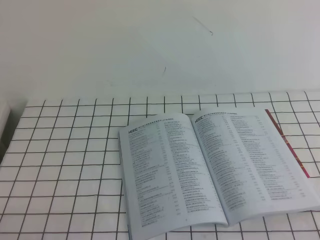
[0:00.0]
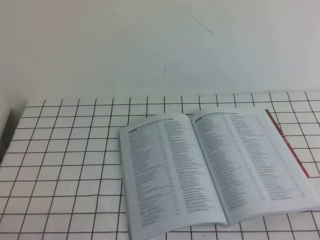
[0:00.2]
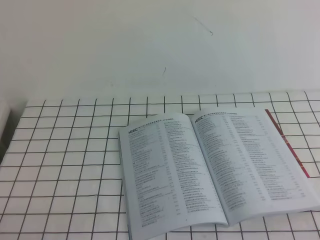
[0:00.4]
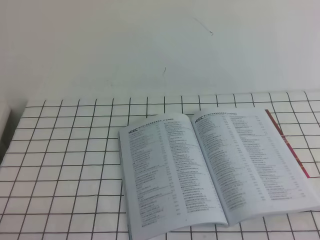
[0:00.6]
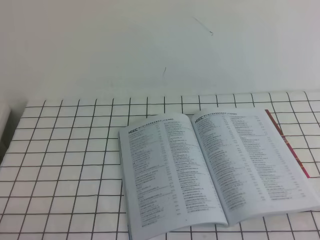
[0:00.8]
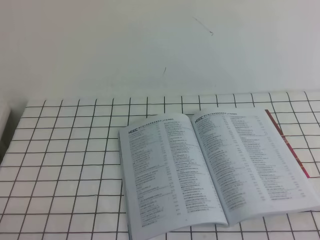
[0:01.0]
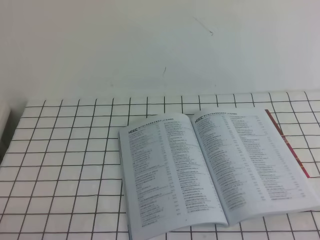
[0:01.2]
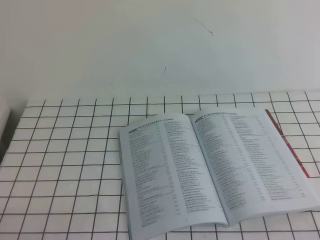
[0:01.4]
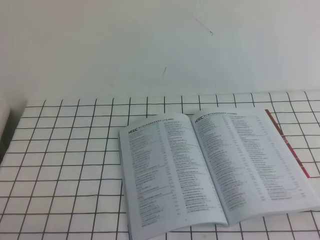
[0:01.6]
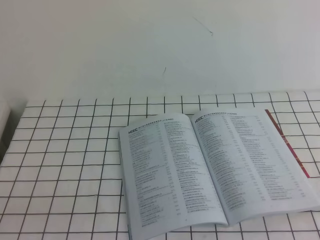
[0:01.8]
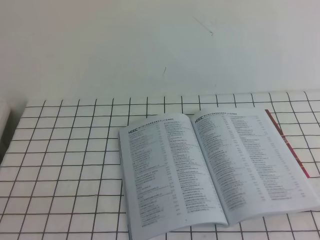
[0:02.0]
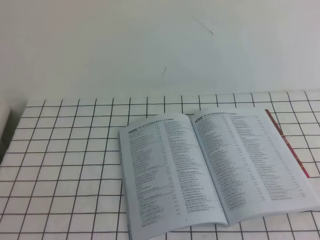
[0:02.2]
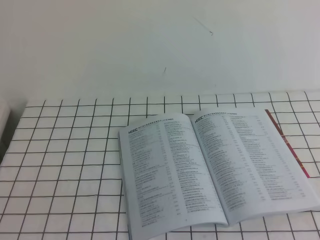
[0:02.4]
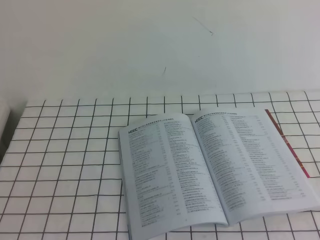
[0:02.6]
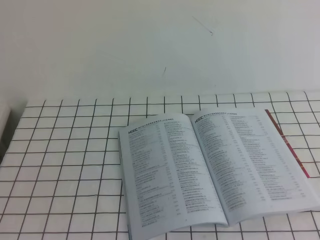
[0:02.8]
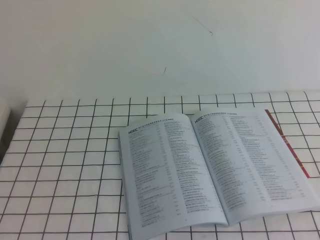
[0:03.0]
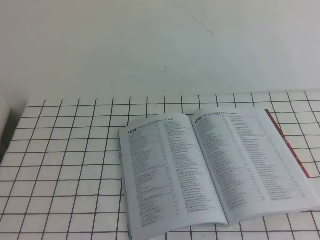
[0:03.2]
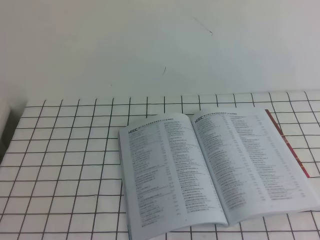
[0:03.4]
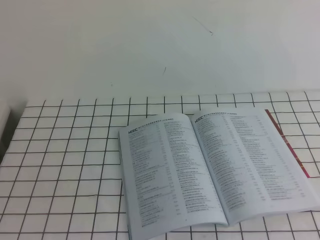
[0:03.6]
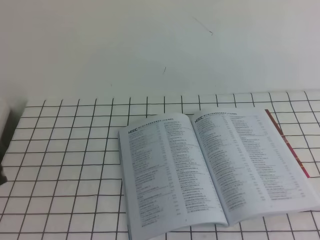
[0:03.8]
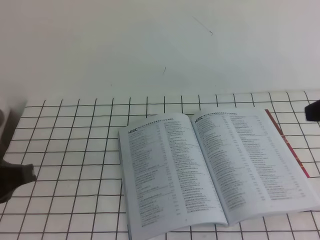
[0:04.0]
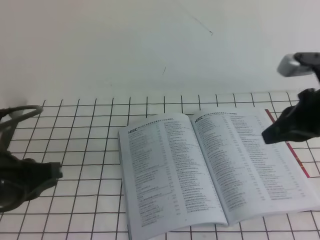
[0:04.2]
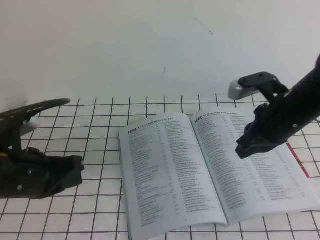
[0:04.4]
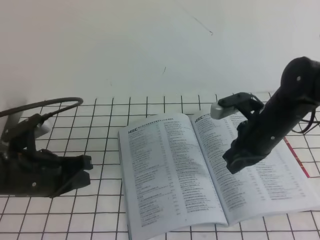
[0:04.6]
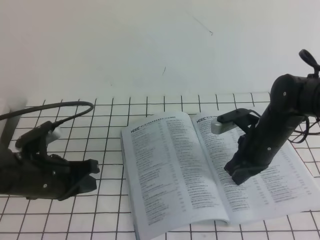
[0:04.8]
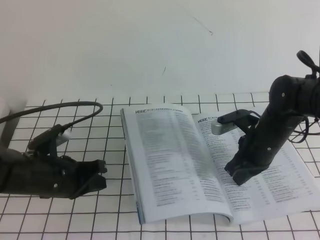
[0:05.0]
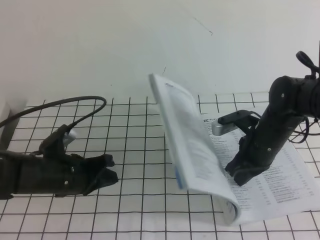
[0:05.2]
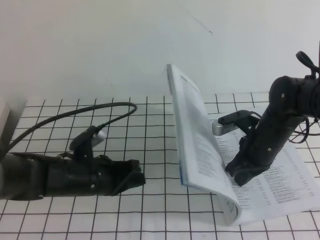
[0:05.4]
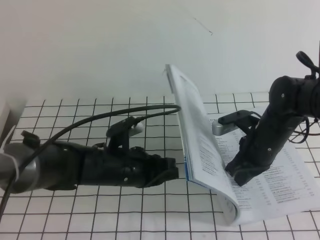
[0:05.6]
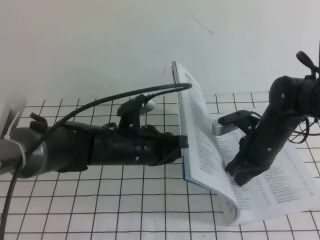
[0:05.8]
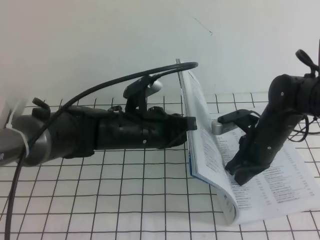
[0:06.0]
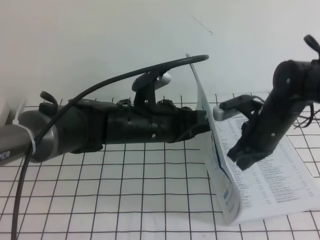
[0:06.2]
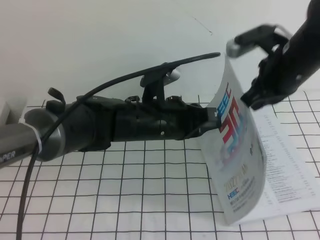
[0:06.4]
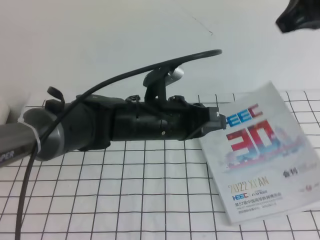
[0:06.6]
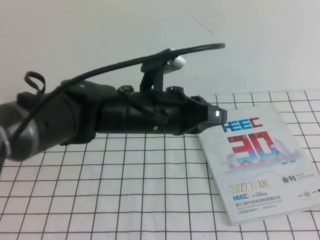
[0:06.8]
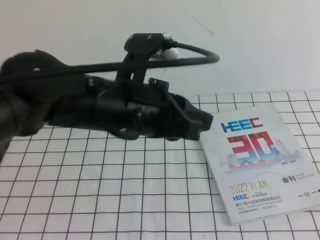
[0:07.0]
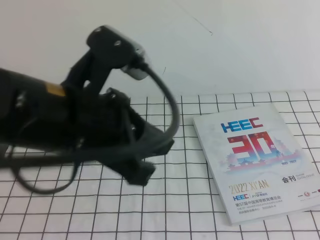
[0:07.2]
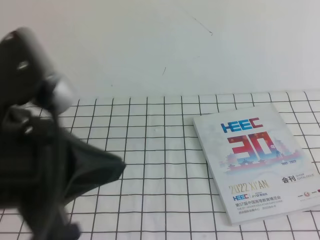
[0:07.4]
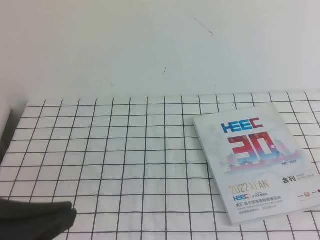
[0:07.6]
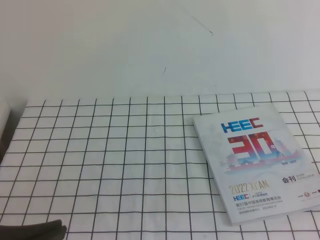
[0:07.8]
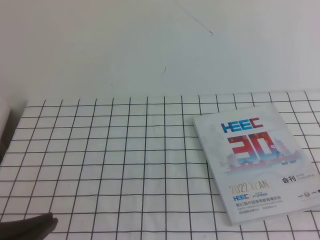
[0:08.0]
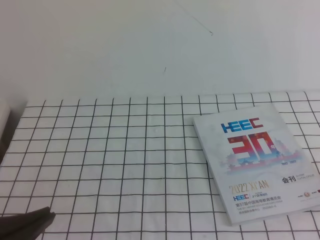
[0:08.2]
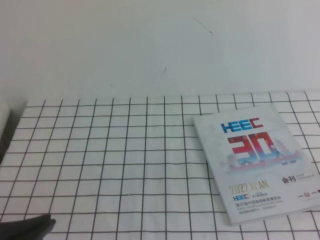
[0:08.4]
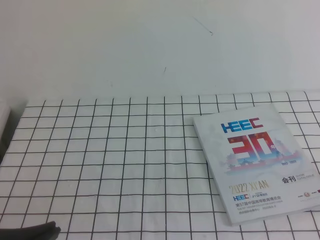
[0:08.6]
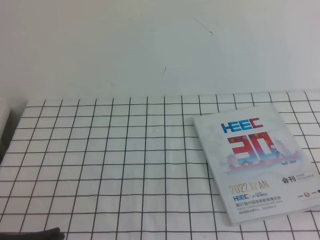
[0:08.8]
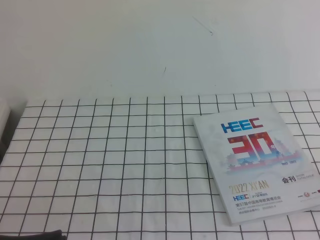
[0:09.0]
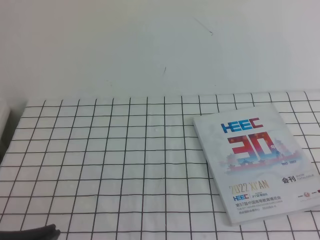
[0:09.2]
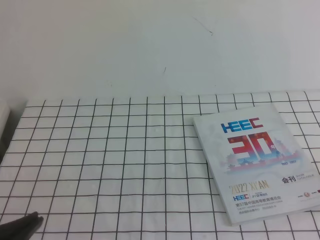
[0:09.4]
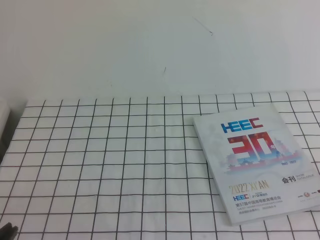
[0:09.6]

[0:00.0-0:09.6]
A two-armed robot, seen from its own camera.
Task of the whole recording: on the white tablecloth, hold the book with one hand and close it with the other.
0:03.2 to 0:04.8: The left gripper travels forward and downward by some 35 cm, while the right gripper travels downward, forward and to the left by roughly 50 cm.
0:04.8 to 0:06.4: The left gripper travels to the right by roughly 15 cm. Meanwhile the right gripper goes approximately 15 cm upward.
0:06.4 to 0:08.0: The left gripper travels backward and to the left by about 30 cm. The right gripper goes about 35 cm backward and to the right.
0:08.0 to 0:09.6: The left gripper heads downward, covering roughly 5 cm.
